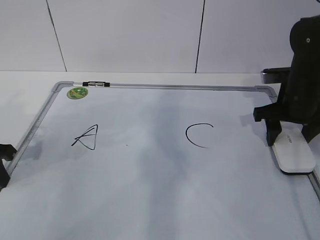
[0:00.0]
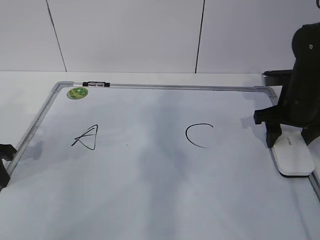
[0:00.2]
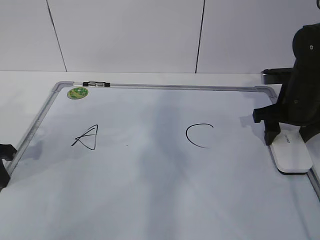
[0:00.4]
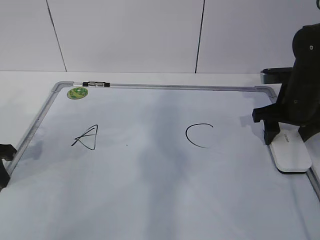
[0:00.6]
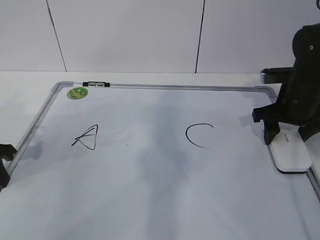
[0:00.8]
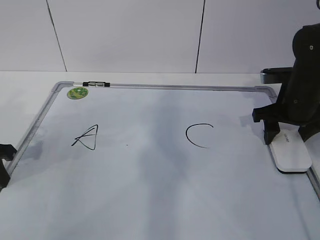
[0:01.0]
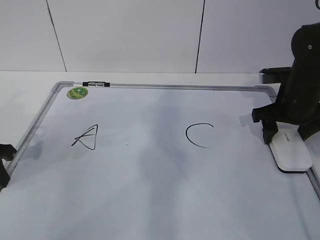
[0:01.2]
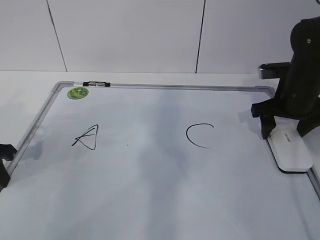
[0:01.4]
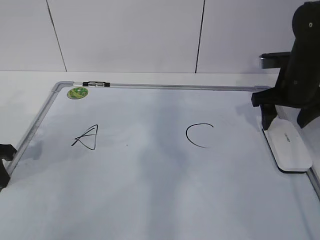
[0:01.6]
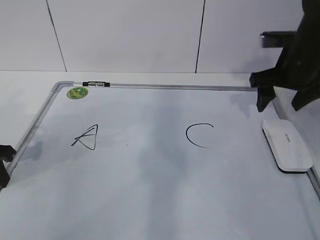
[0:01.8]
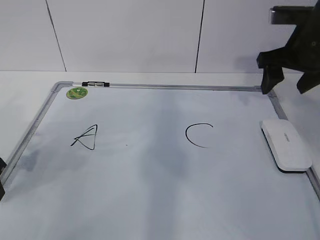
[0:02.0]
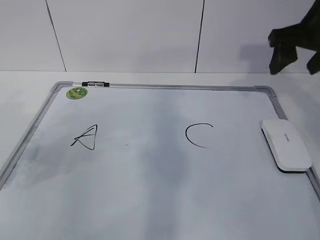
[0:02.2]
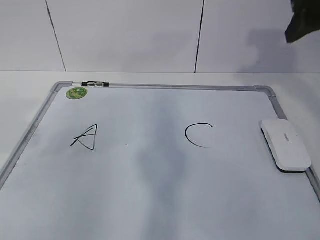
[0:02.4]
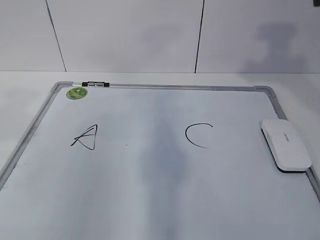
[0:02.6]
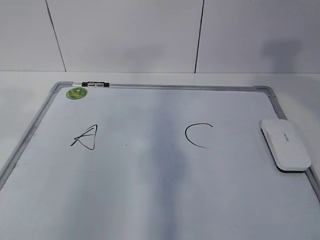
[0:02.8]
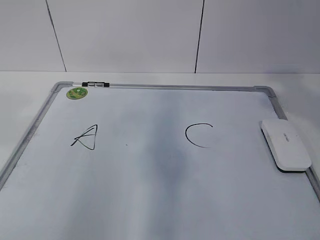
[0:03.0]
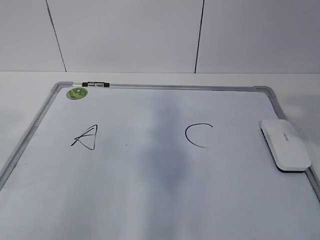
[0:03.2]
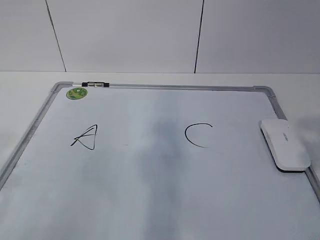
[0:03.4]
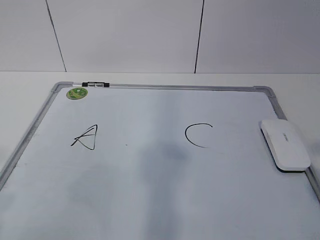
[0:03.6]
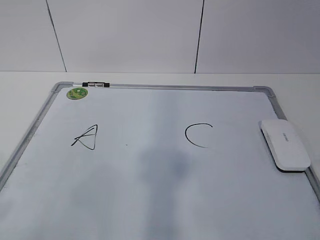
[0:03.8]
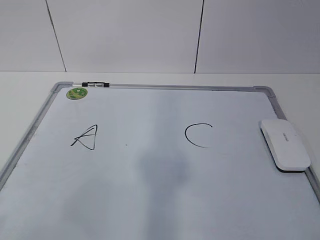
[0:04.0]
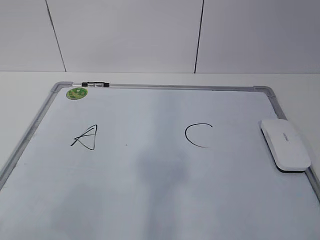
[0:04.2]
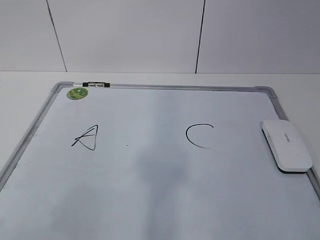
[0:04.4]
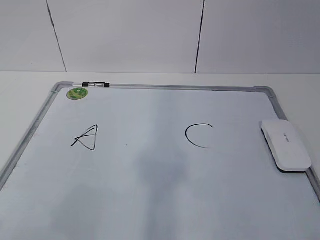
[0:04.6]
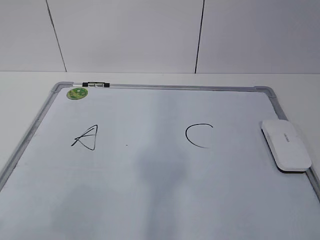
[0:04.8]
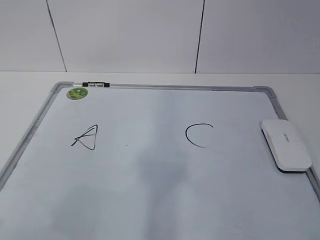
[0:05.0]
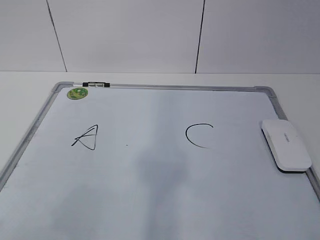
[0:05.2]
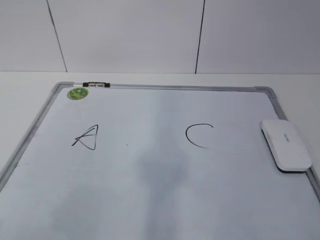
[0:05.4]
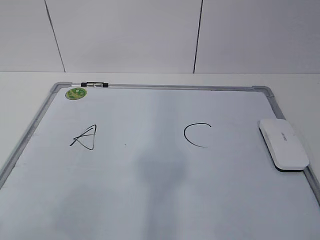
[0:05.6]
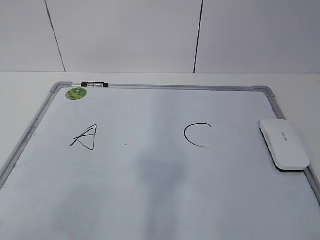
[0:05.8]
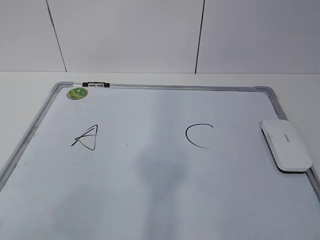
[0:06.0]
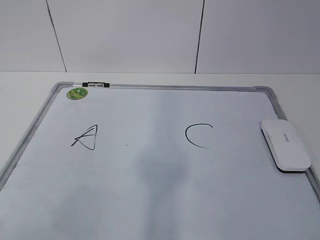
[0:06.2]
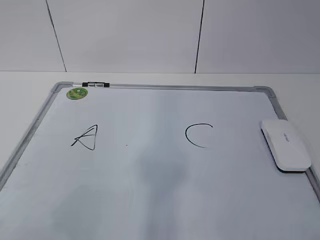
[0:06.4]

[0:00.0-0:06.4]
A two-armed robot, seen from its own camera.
Task of the whole recording: pick up the eraser on the blackboard and erase the letter "B".
0:00.0 to 0:01.6: The right gripper opens its fingers.
0:01.6 to 0:03.2: The left gripper moves upward and backward, roughly 30 cm, and opens up. Meanwhile the right gripper goes some 30 cm backward and upward.
